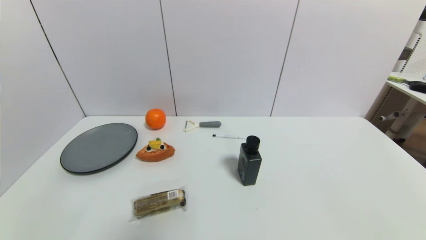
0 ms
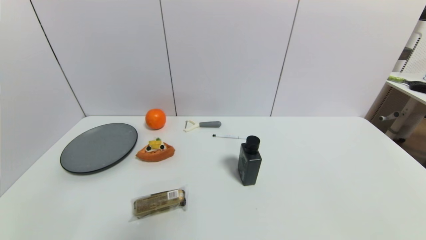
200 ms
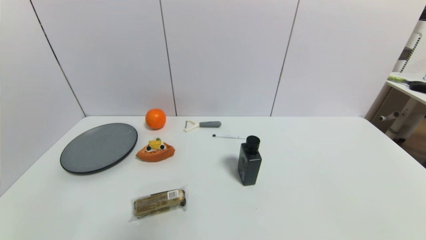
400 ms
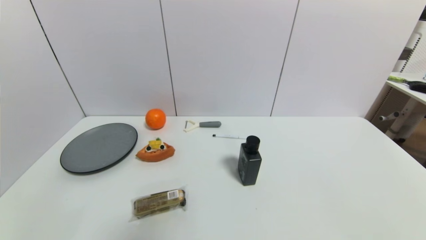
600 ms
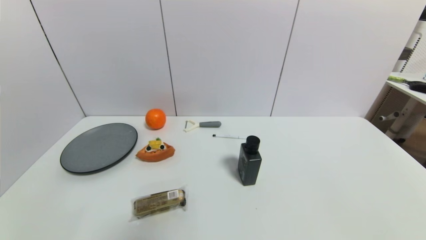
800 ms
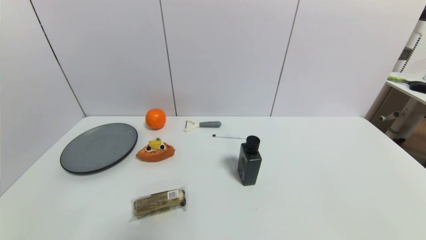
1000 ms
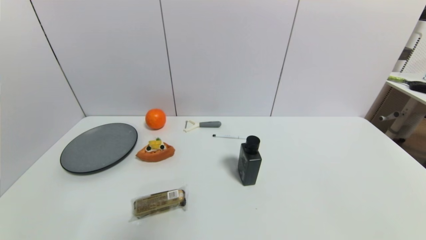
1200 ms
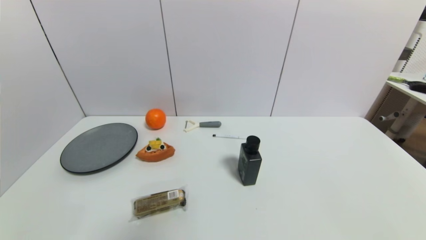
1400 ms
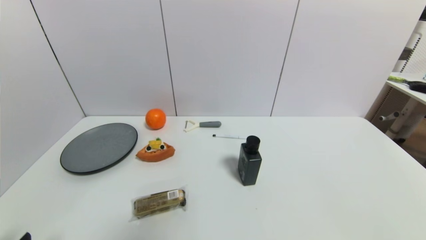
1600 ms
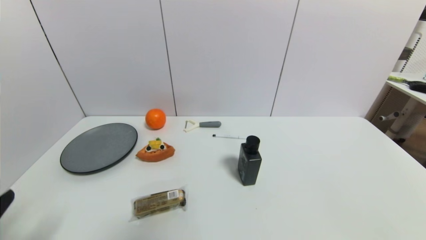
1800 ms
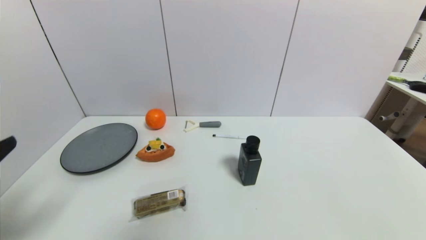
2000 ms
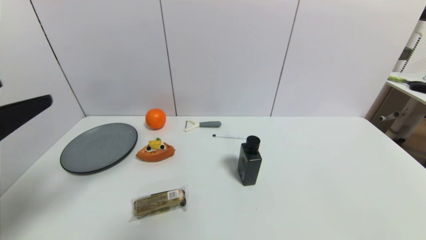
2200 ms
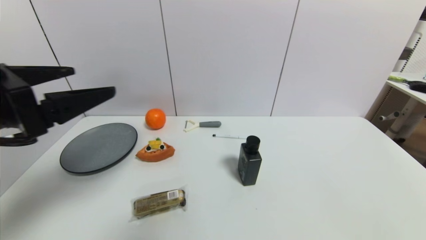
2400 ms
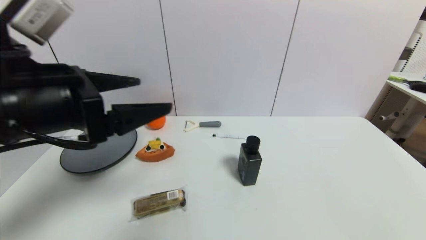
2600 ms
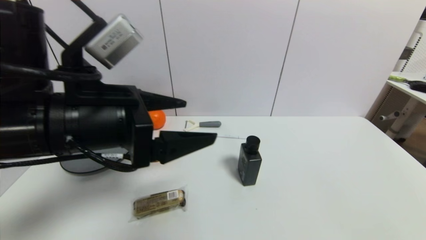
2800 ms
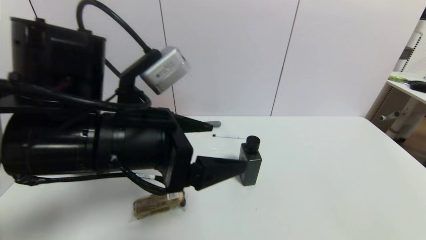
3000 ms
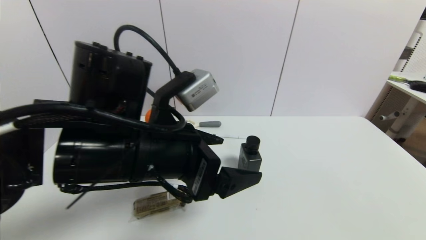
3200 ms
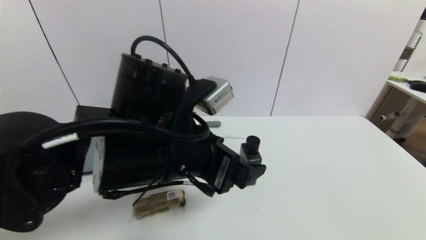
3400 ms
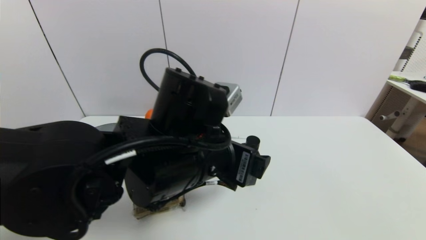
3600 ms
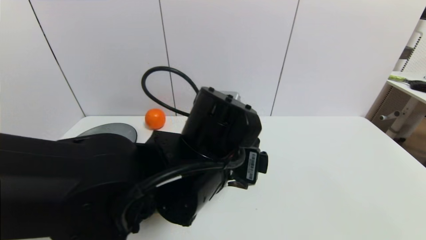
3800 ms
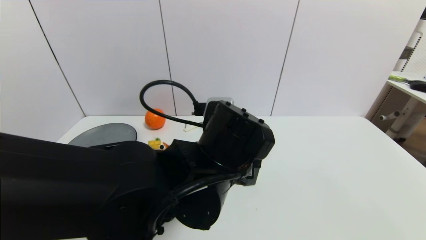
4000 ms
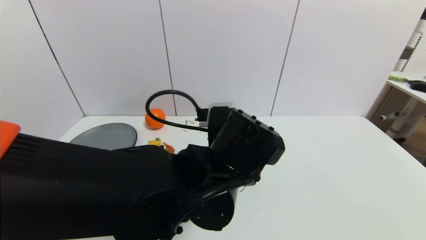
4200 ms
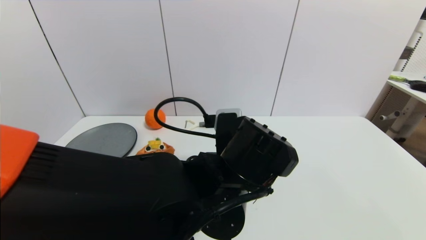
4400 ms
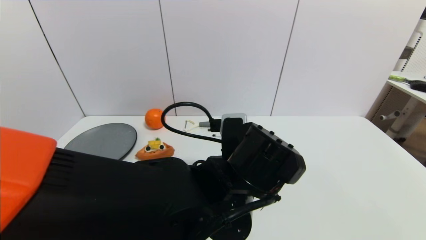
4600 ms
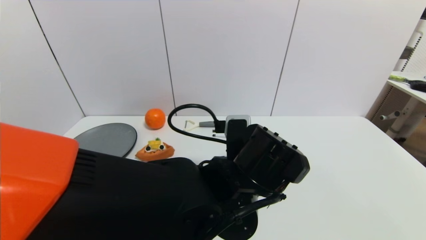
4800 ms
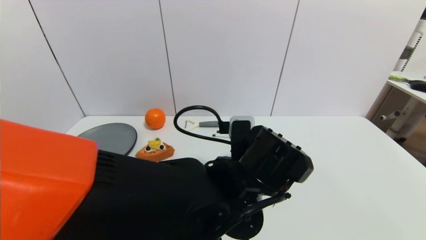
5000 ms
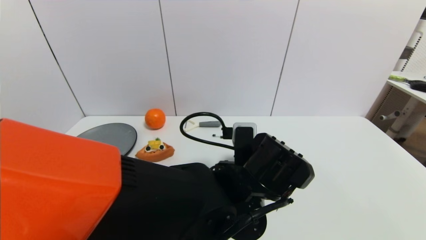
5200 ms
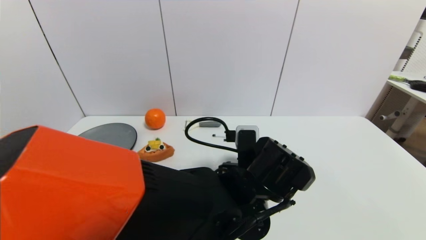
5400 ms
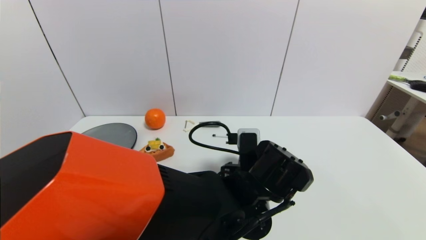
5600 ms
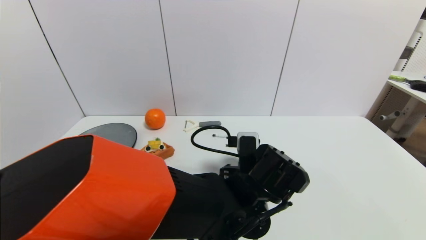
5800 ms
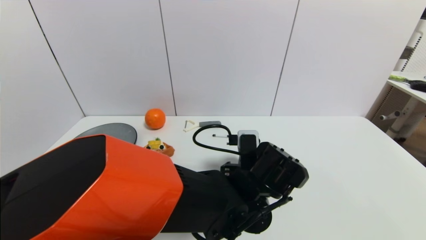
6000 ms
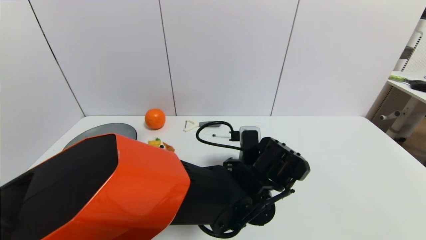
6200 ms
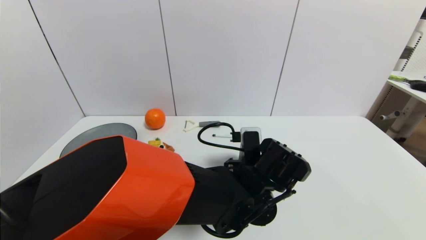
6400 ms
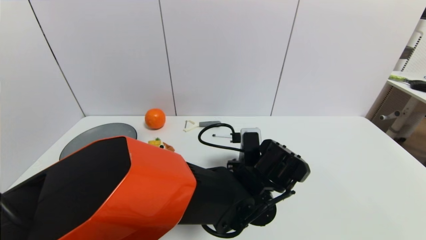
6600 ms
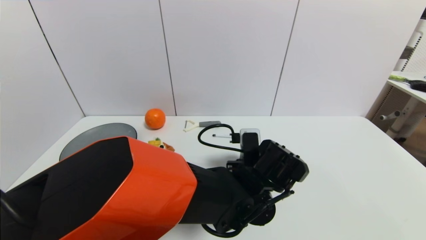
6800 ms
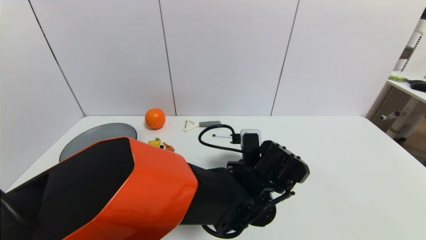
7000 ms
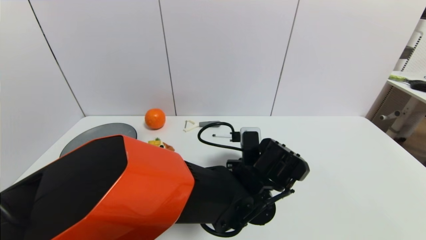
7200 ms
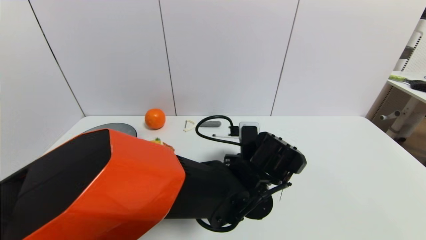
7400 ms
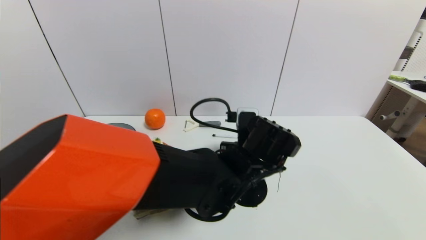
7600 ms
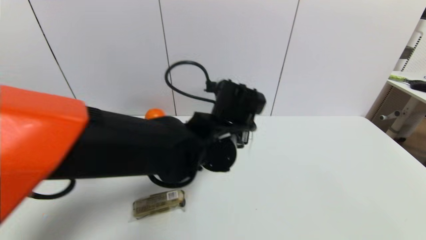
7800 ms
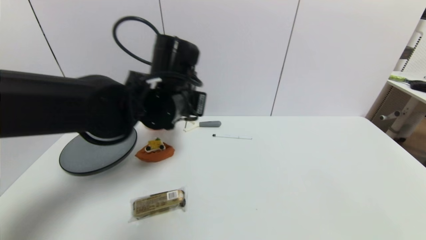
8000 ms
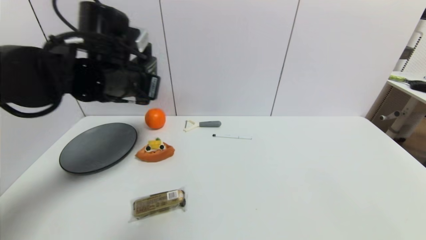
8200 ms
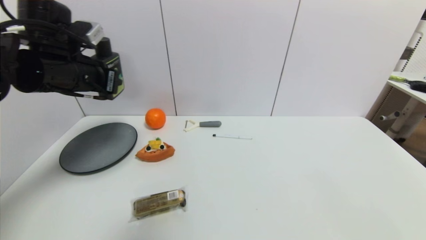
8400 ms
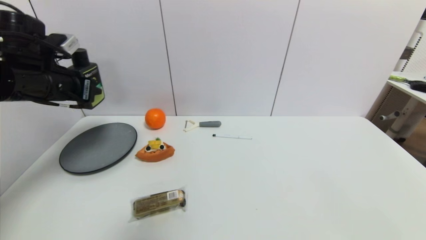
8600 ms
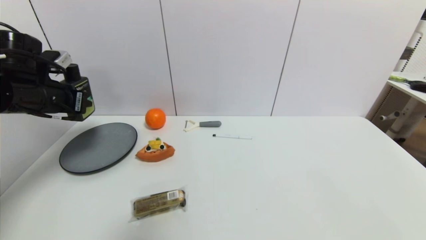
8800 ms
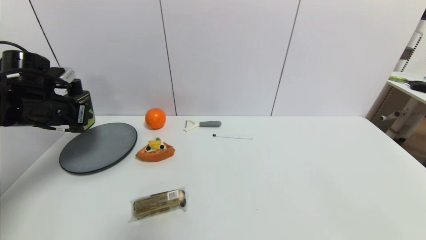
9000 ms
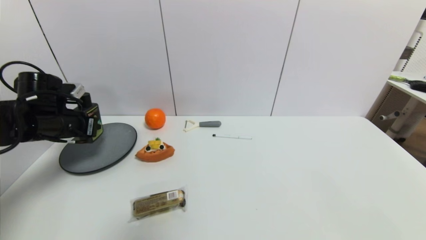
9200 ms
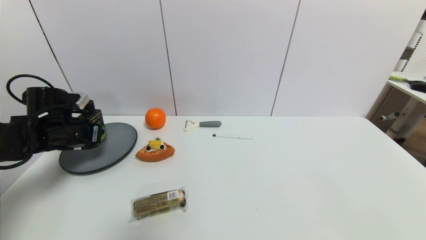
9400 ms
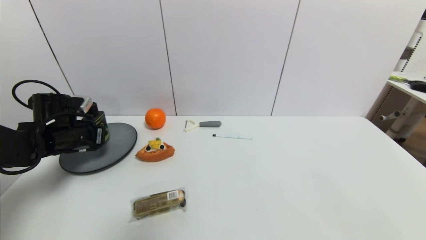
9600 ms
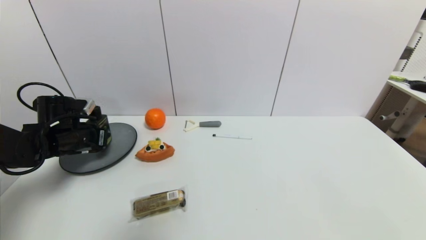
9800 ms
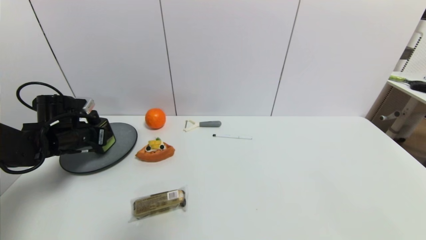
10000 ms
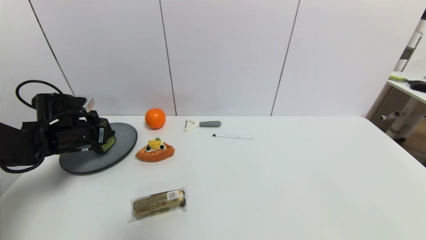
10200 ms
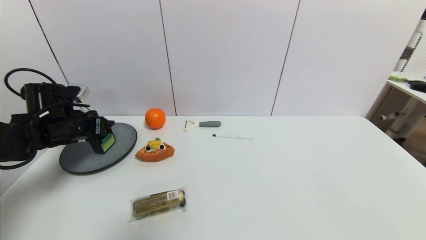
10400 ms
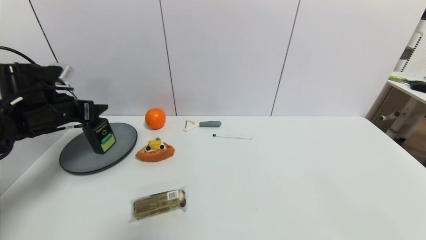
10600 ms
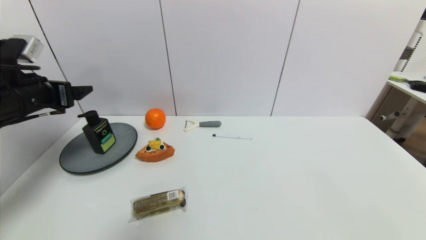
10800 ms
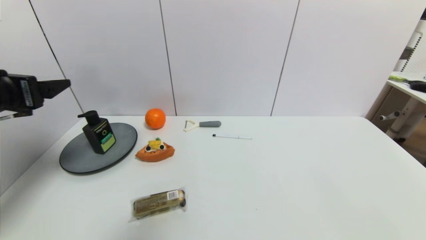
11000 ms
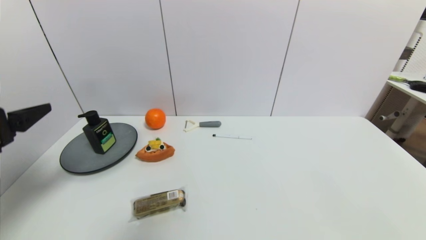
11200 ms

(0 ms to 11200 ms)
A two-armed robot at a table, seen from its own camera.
Task of the whole recording: use a gripper to pick the target object and place on the gray plate.
Step, 0 ms - 7000 ms: Grasp the hard facial cleanser with the left gripper.
Step, 7200 ms - 10600 ms: Place the hard facial cleanser on the gray plate with the left gripper.
1600 ms - 3200 ms: The left gripper travels to the right, forward and upward by some 30 cm.
3200 ms - 4800 ms: The left gripper goes some 15 cm to the right and downward.
4800 ms - 6400 ms: The left gripper shifts some 5 cm downward.
6400 ms - 8000 ms: The left gripper moves to the left and upward, about 20 cm, and closes up.
8000 ms - 9600 ms: The left gripper travels to the left and downward by roughly 30 cm.
9600 ms - 11200 ms: The left gripper moves backward and upward, approximately 25 cm, and opens its fingers.

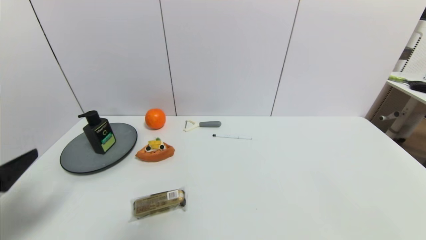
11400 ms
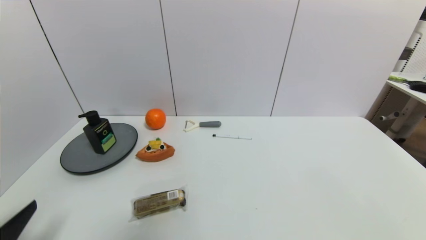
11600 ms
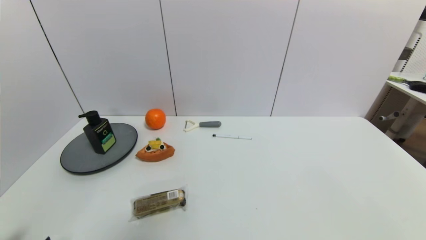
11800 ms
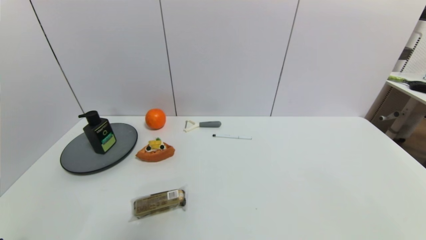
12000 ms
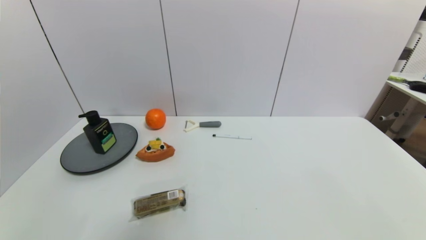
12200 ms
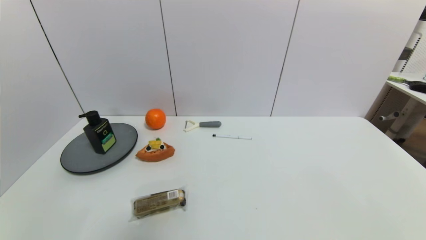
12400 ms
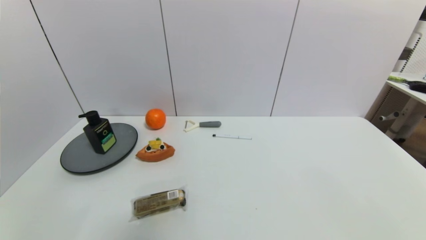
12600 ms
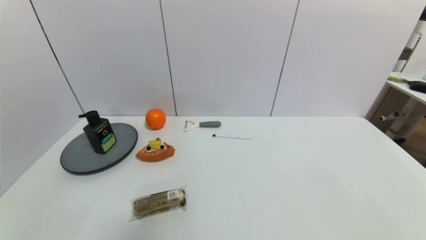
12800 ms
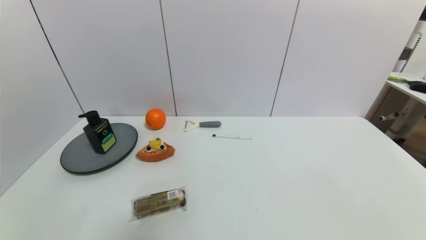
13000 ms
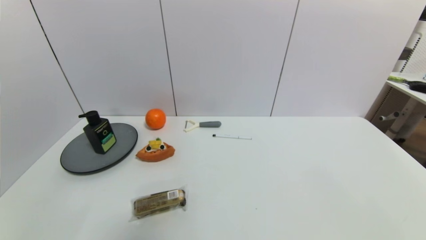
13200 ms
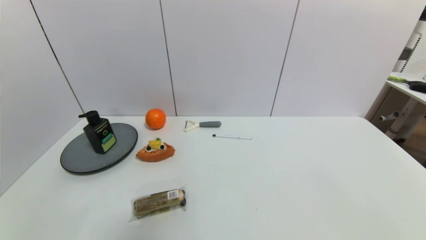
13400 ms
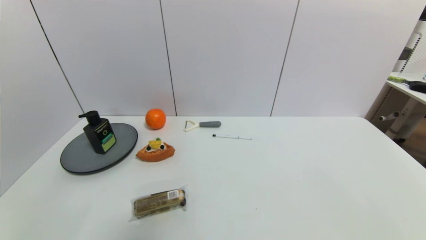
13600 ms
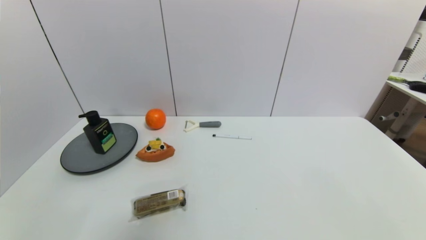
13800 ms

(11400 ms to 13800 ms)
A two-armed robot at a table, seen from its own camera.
Task of the whole recording: use a gripper to pick the target object and place on the gray plate.
11400 ms - 12600 ms: The left gripper heads downward and backward, covering some 20 cm.
12600 ms - 13800 ms: The two grippers keep their place.

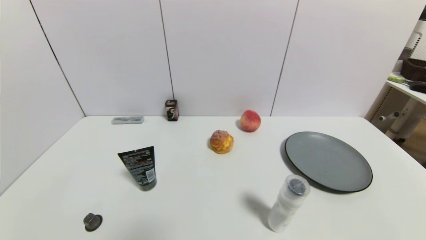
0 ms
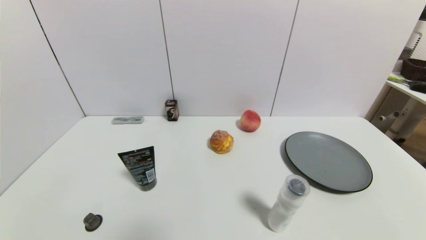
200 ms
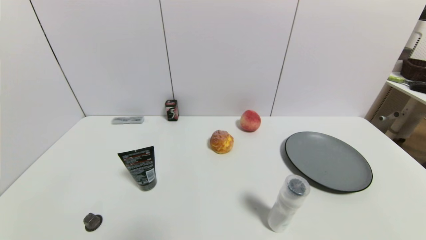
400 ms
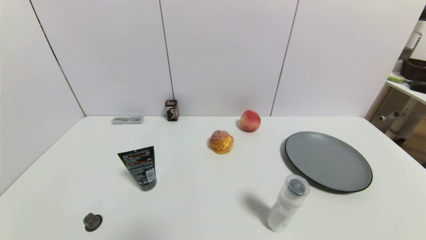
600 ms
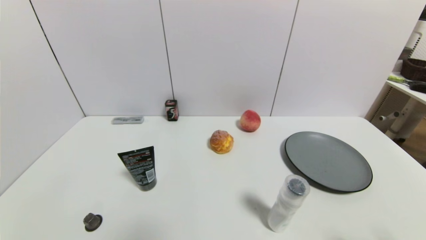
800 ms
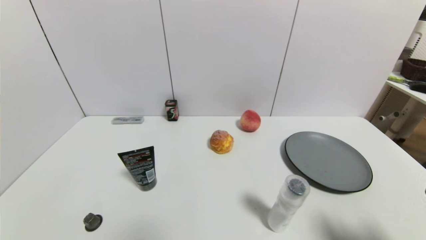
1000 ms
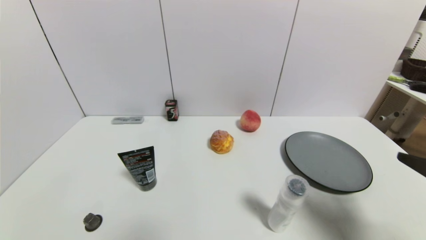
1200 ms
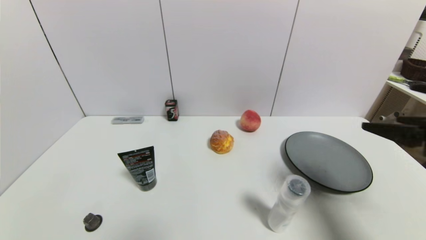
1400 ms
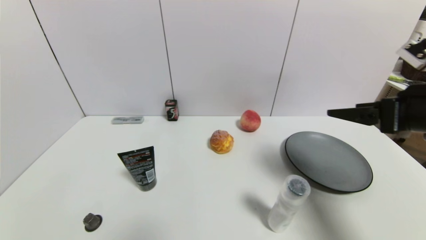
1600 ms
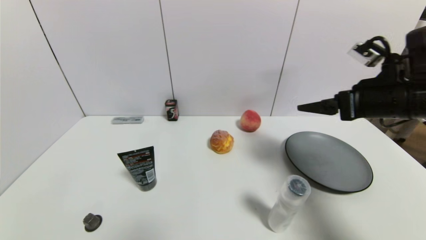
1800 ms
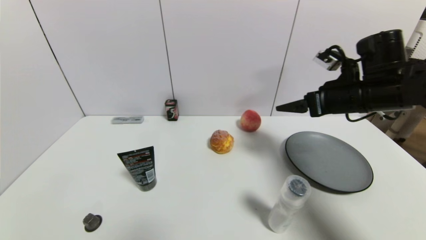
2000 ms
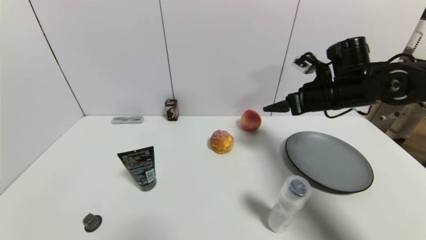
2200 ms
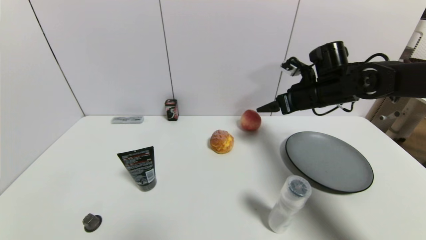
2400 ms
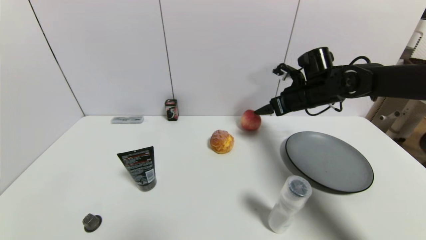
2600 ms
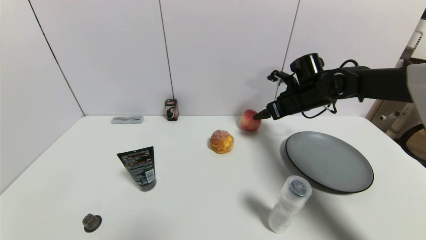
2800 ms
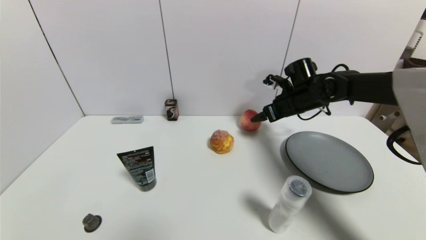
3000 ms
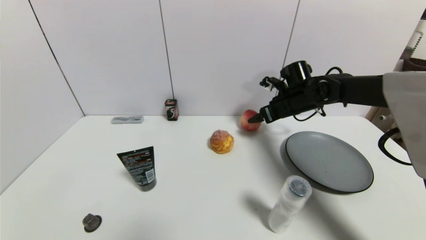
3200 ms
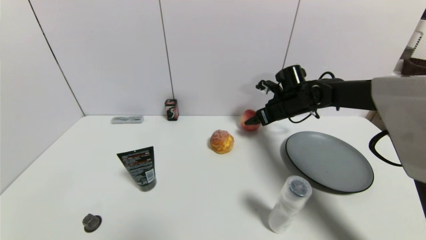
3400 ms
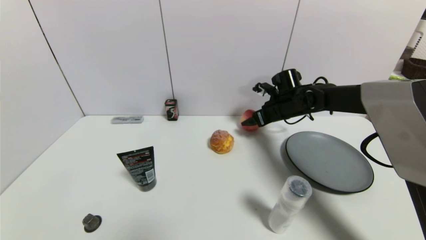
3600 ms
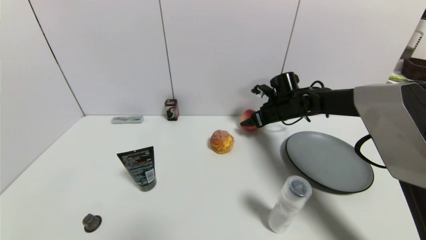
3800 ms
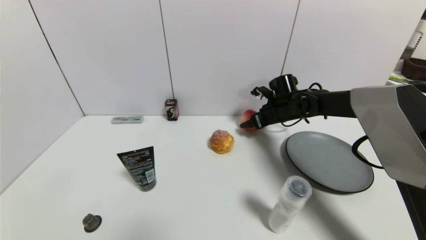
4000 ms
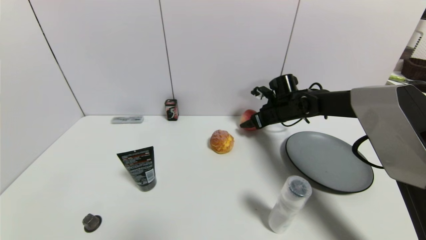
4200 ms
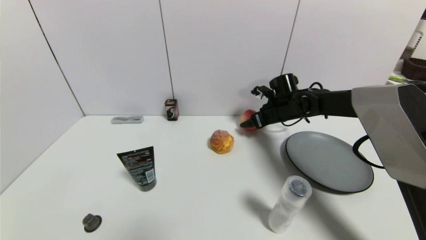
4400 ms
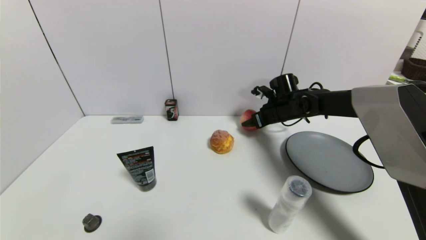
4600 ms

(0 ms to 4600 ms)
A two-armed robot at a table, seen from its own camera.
Task of the whole recording: use a gripper to pick the target object and place on the gray plate.
0 ms - 1600 ms: The right gripper goes some 30 cm forward and upward.
1600 ms - 3000 ms: The right gripper travels forward and downward by roughly 25 cm.
3000 ms - 4600 ms: The right gripper shifts by some 5 cm, and closes its fingers.
